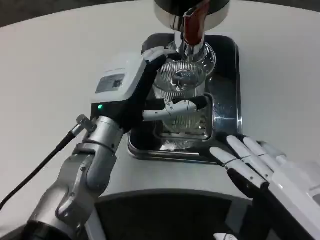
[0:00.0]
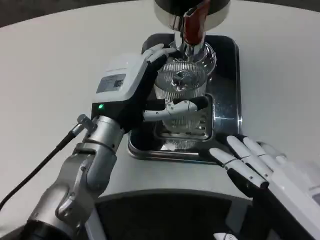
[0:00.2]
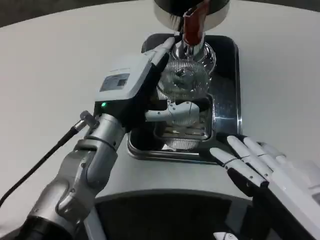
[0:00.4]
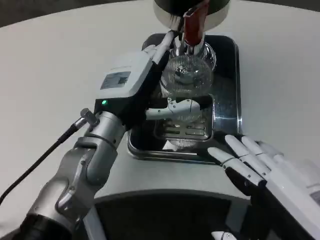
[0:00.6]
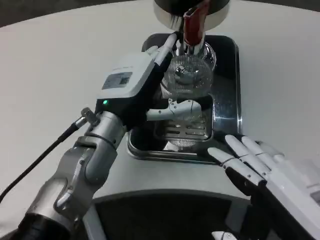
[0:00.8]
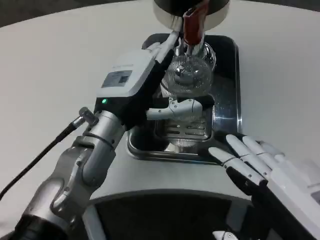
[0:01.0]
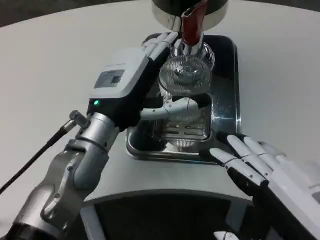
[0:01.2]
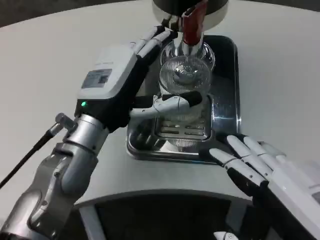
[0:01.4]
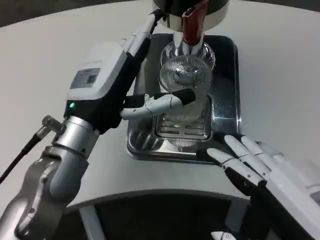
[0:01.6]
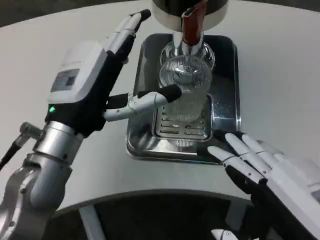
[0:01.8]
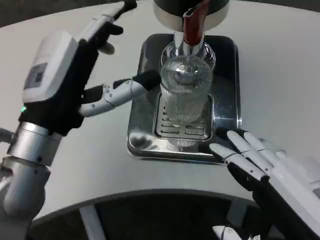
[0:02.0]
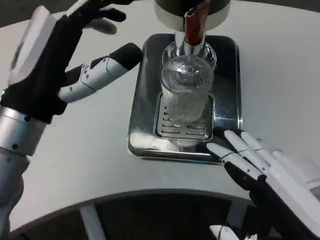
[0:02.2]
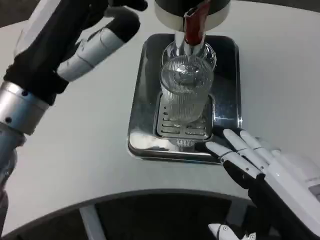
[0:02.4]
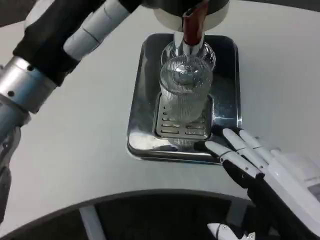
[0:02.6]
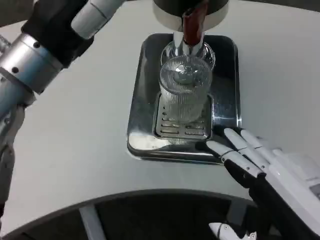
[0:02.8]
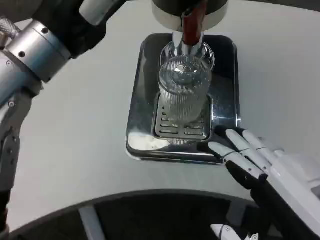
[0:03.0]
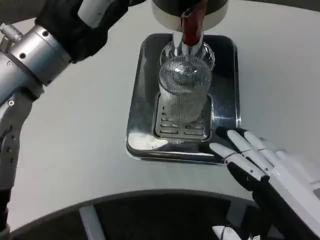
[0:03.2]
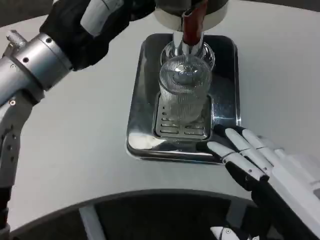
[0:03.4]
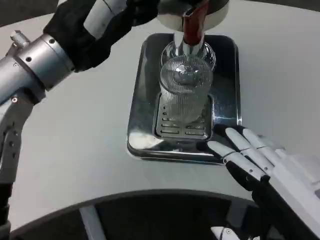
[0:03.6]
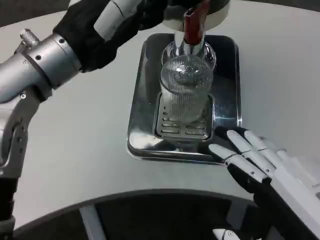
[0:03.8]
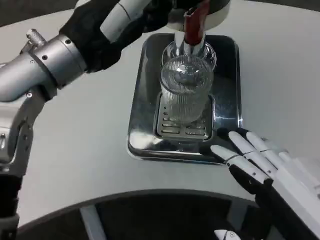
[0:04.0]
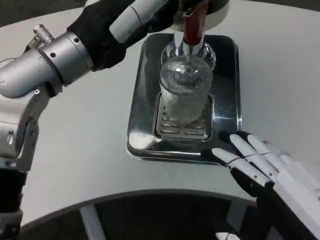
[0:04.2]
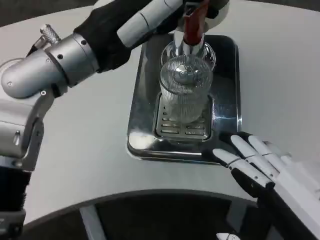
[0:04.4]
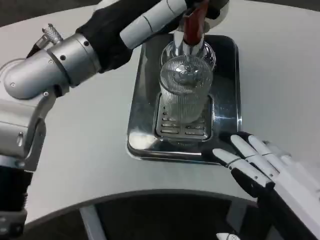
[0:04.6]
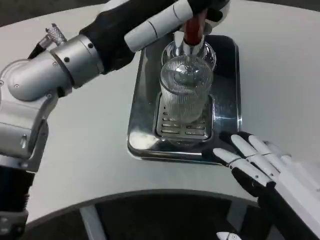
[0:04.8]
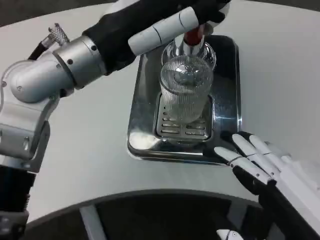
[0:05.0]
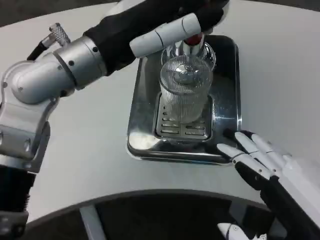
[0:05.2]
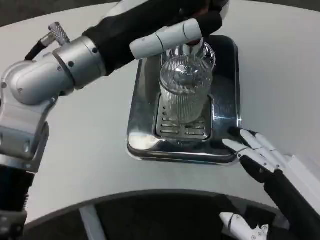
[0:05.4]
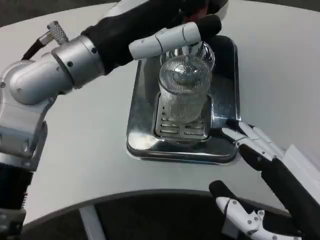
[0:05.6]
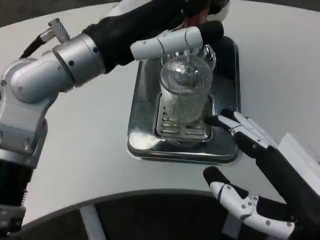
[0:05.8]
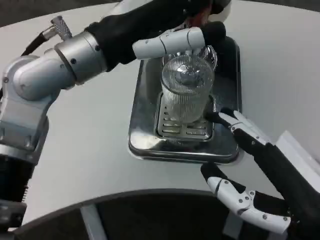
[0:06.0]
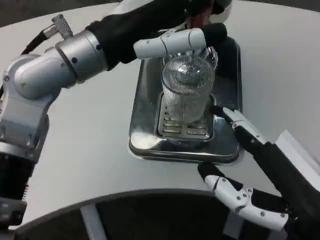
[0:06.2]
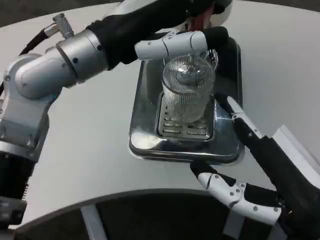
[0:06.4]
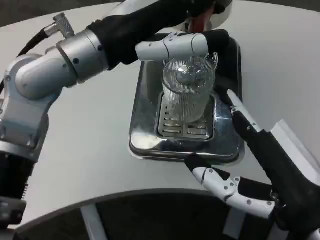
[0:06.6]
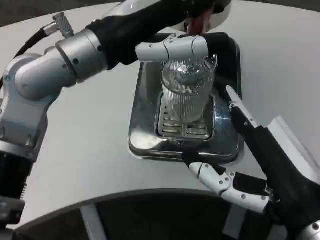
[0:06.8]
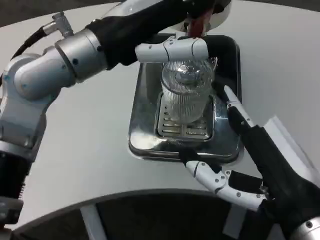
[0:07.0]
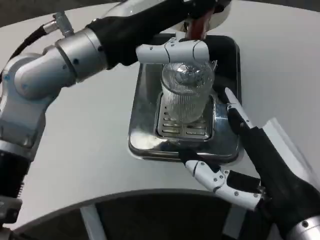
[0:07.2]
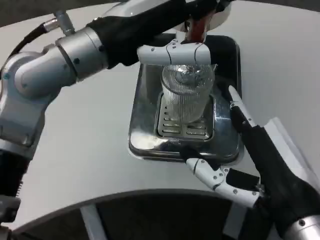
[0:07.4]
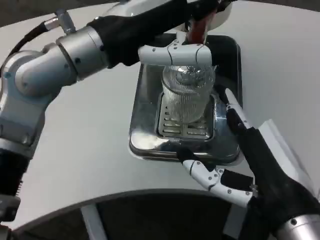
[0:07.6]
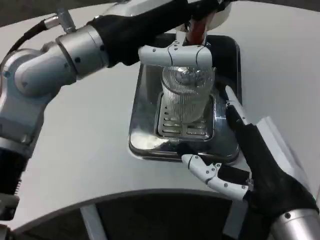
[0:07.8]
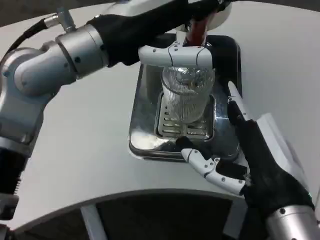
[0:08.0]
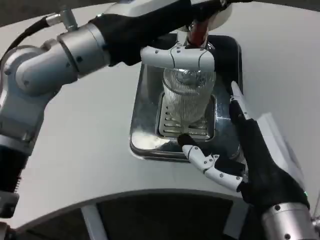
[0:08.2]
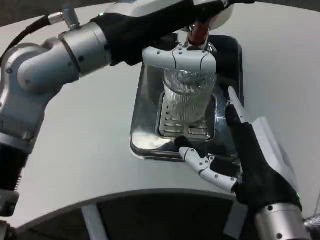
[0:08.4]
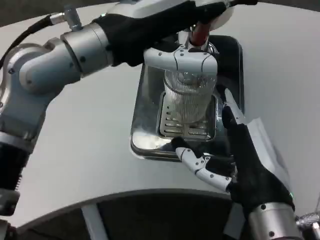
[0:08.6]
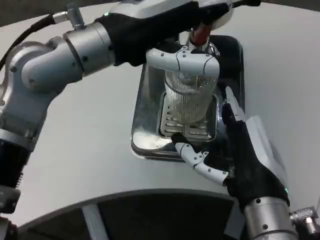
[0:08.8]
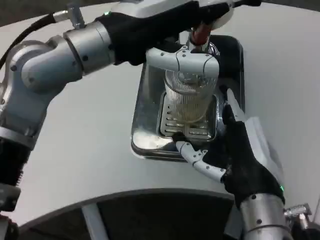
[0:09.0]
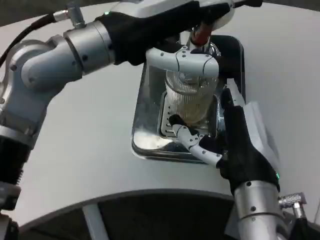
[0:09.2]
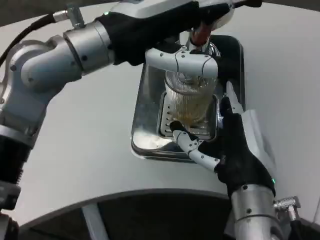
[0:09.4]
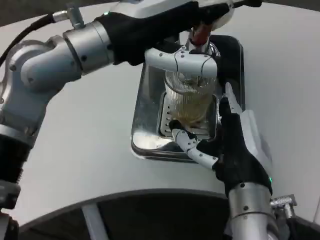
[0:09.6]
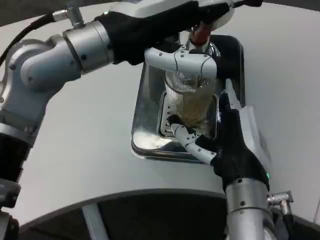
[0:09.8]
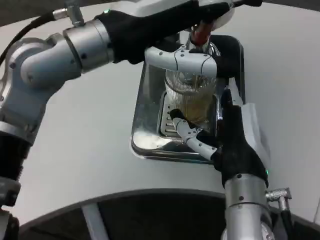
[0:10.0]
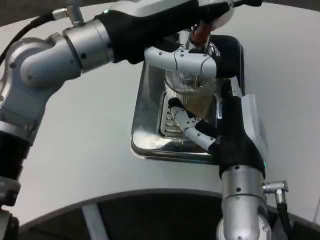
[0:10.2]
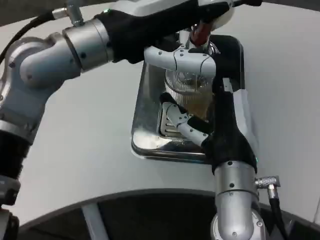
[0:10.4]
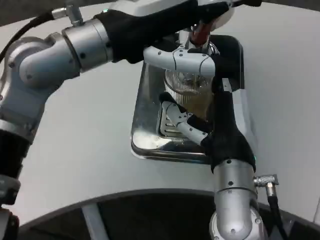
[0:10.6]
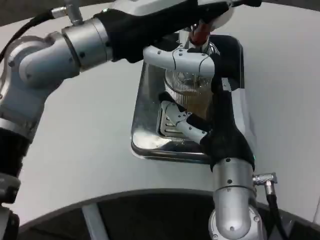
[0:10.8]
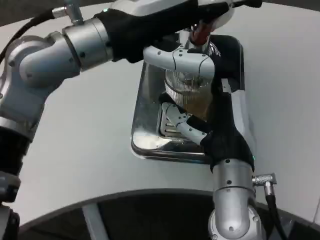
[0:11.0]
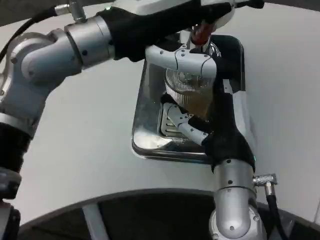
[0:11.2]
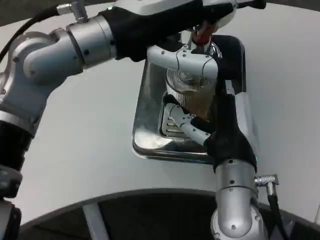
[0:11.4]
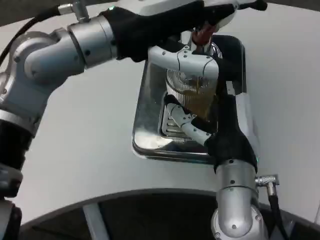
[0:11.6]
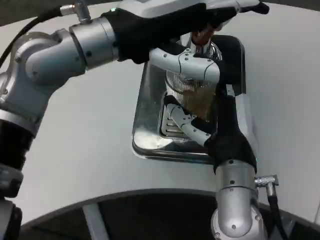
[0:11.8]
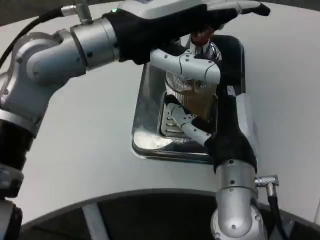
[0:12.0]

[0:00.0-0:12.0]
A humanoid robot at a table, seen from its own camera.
Task of the whole recording: Grasp the cup under the faucet to collect the drink, then remove the cup.
0:00.0 to 0:01.6: The left hand changes place by about 5 cm.
0:01.6 to 0:03.0: The left hand moves upward, about 10 cm.
0:06.0 to 0:07.6: The right hand shifts by some 5 cm.
0:07.6 to 0:09.0: The right hand ends up about 5 cm from where it was.
0:10.4 to 0:12.0: The two hands keep their place.

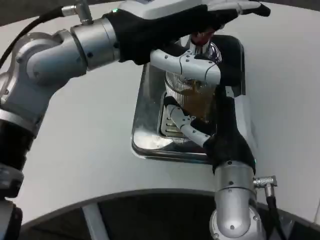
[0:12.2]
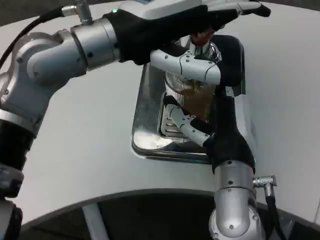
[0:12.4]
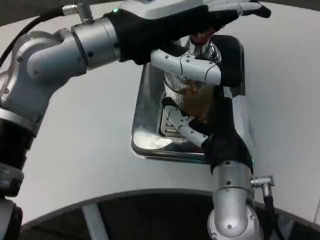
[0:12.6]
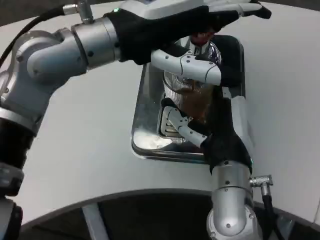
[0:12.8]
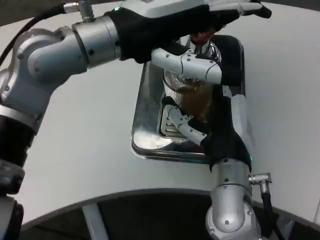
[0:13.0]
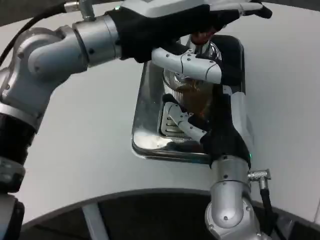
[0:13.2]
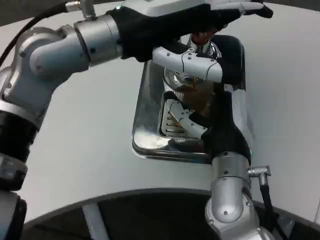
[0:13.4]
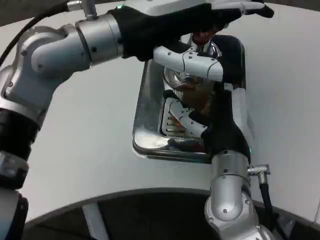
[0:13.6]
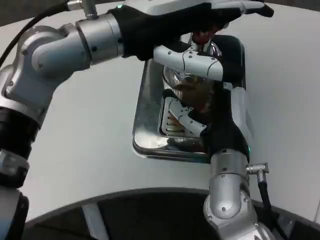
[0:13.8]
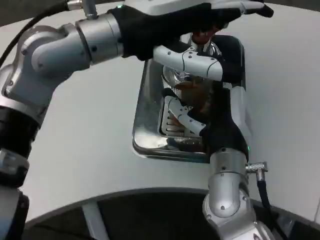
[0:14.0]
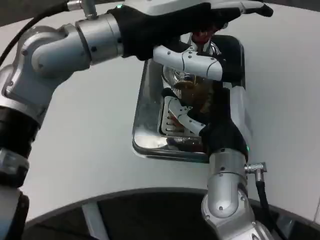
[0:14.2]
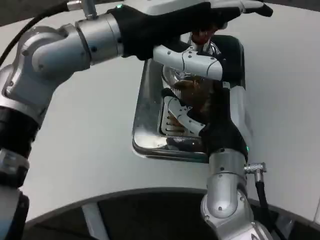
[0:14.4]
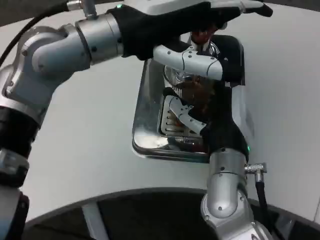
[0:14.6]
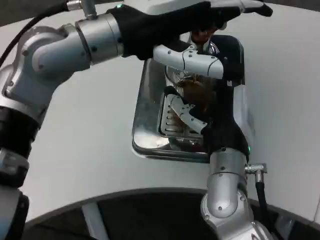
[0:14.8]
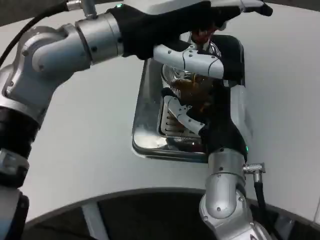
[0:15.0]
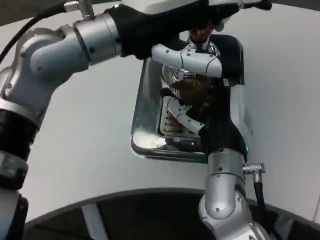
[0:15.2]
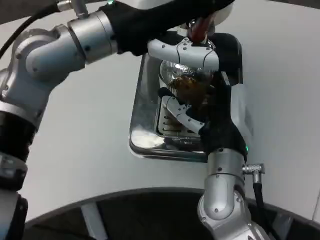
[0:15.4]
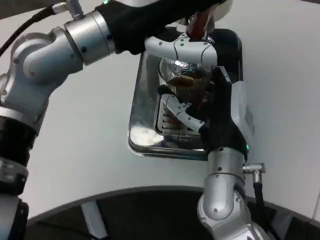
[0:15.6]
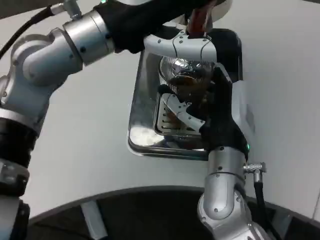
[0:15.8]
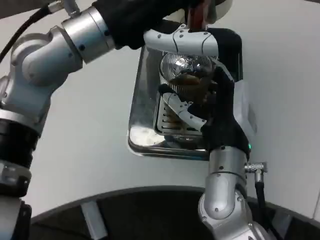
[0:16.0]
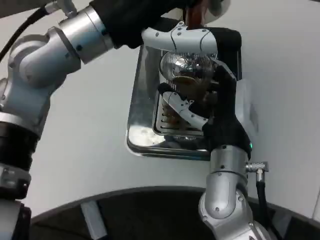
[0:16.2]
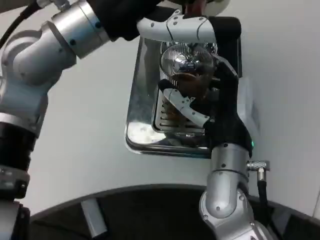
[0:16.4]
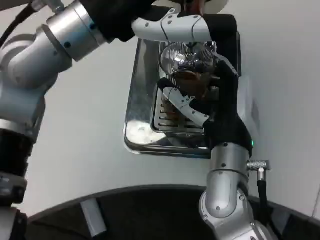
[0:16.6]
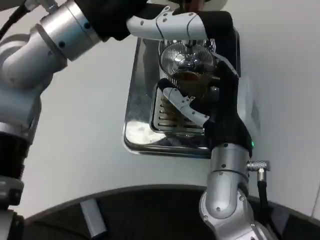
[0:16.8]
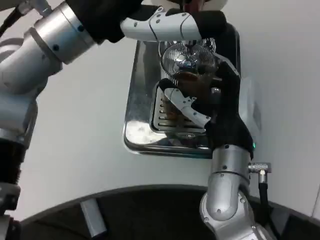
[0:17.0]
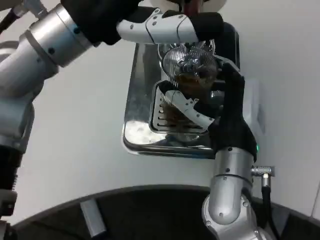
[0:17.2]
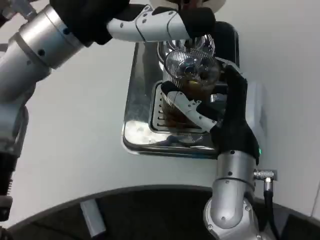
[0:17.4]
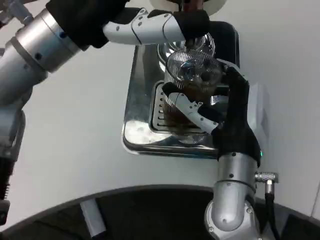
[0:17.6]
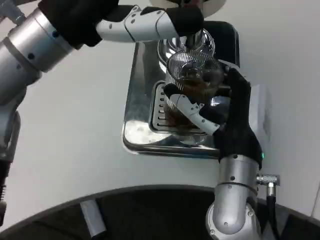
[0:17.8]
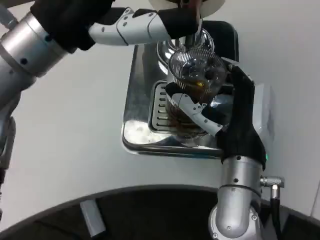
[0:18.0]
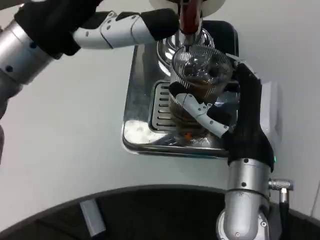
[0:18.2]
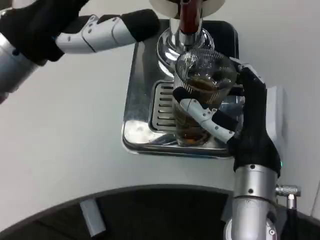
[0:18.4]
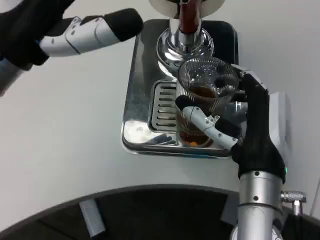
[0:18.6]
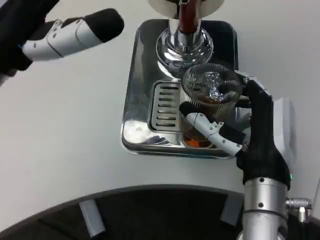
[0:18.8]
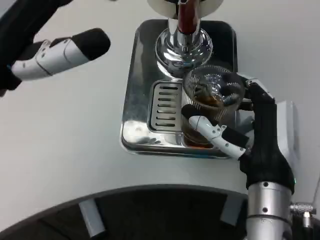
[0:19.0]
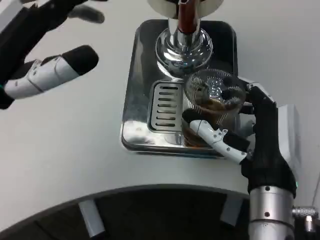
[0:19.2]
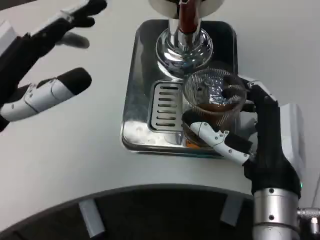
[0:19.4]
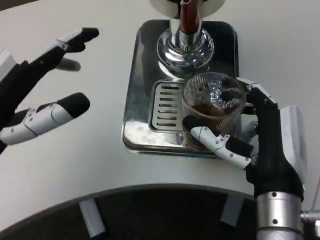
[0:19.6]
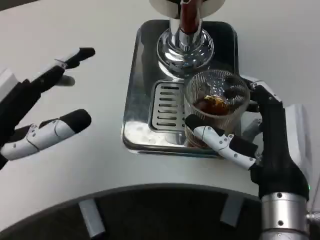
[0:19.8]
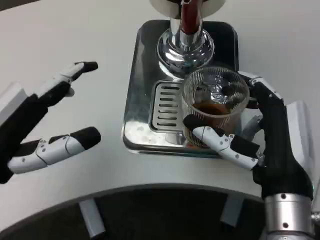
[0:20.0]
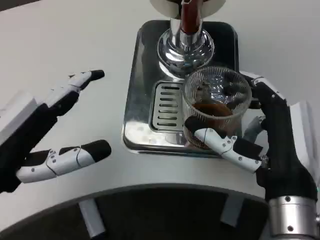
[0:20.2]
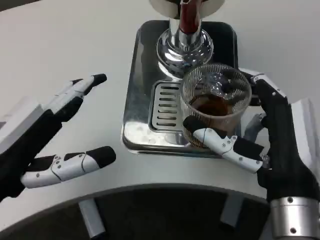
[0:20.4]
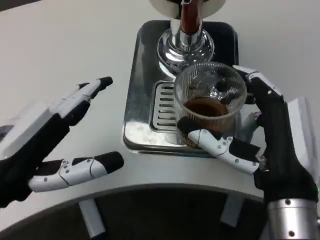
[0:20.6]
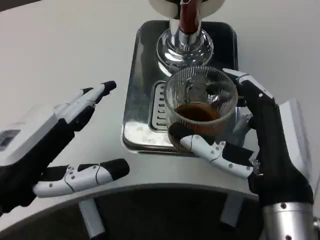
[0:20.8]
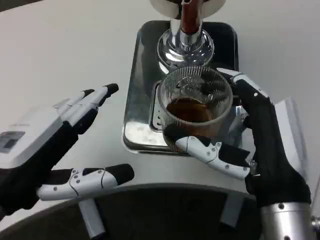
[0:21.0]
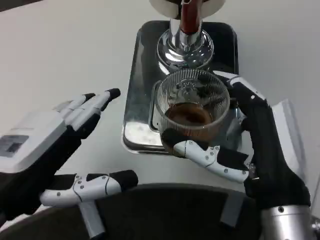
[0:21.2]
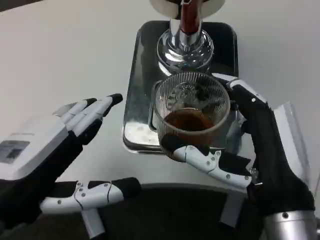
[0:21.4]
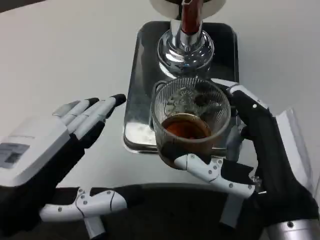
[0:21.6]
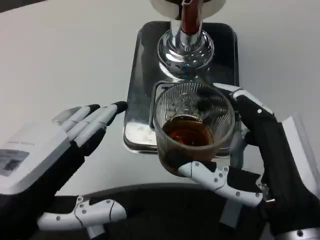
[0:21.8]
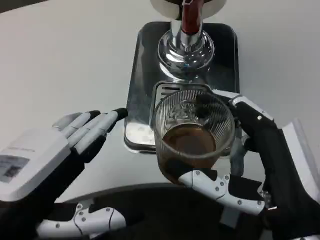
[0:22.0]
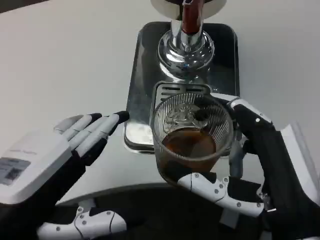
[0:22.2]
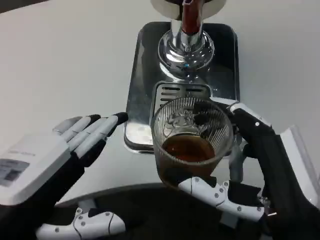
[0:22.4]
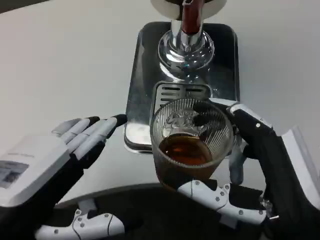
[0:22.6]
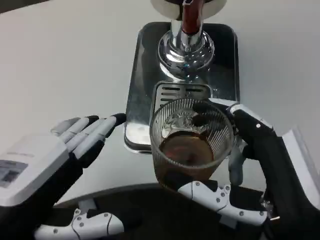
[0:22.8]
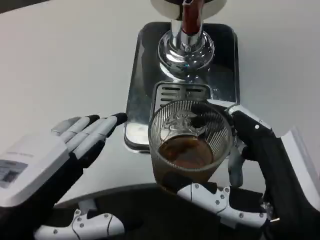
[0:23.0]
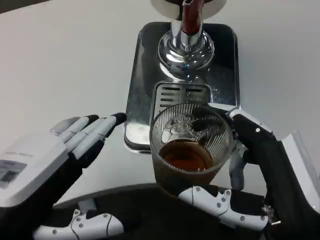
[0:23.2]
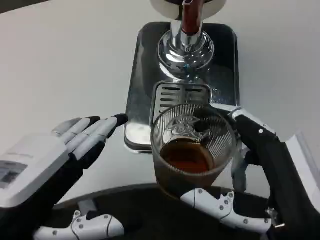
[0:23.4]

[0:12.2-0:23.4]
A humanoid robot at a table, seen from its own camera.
Task of the whole recording: Grasp the cup under the faucet to collect the drink, then remove the cup.
0:17.0 to 0:18.6: The left hand goes roughly 5 cm to the left.
0:18.6 to 0:20.2: The left hand travels downward and backward by approximately 15 cm.
0:20.2 to 0:21.8: The left hand shifts approximately 5 cm backward.
